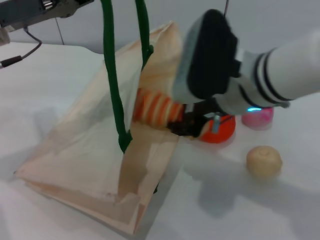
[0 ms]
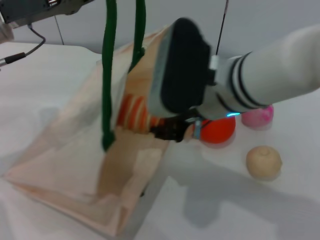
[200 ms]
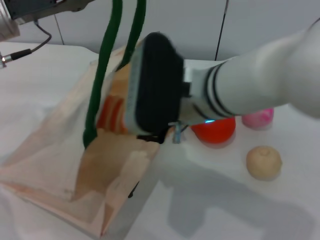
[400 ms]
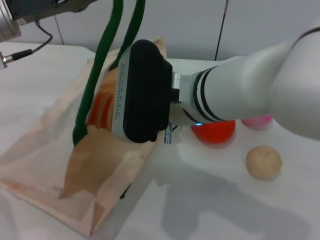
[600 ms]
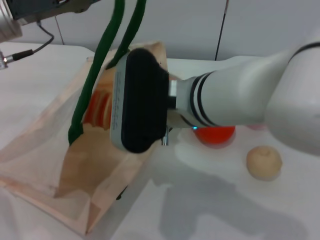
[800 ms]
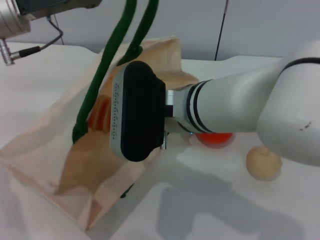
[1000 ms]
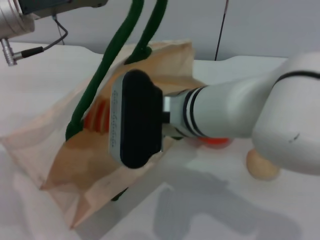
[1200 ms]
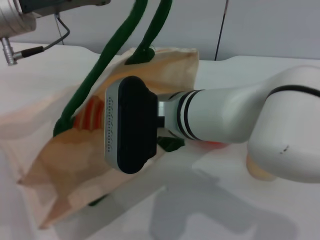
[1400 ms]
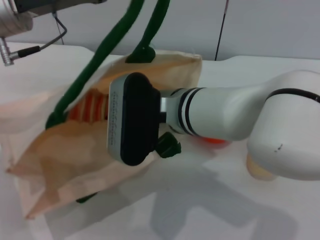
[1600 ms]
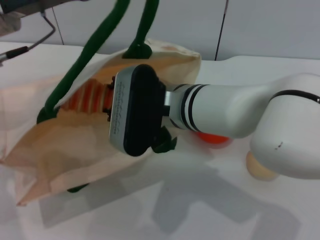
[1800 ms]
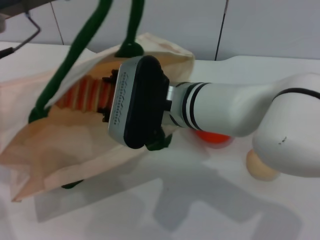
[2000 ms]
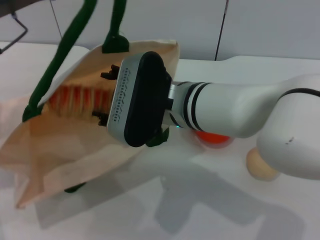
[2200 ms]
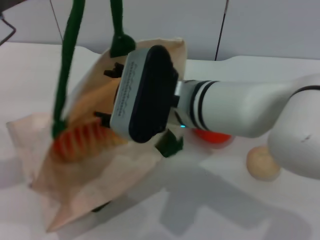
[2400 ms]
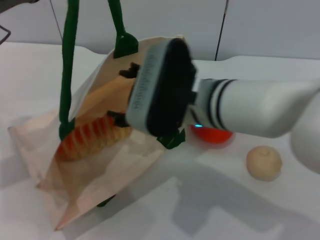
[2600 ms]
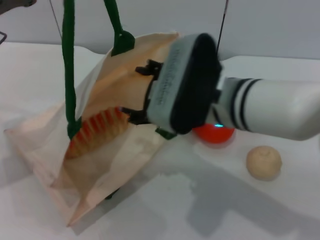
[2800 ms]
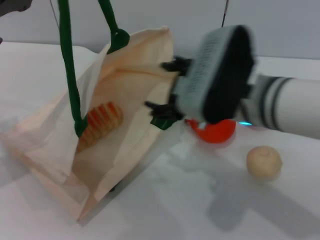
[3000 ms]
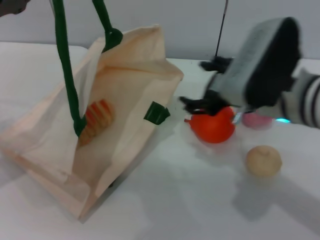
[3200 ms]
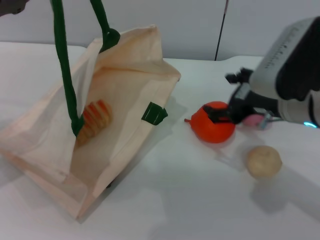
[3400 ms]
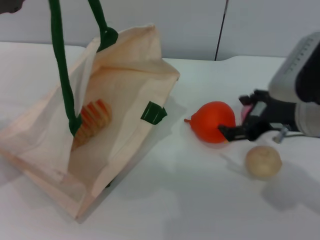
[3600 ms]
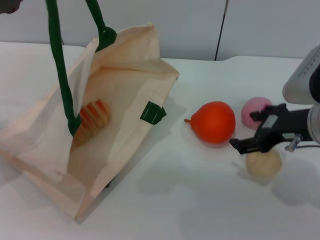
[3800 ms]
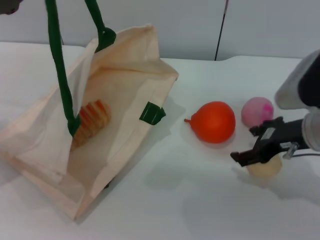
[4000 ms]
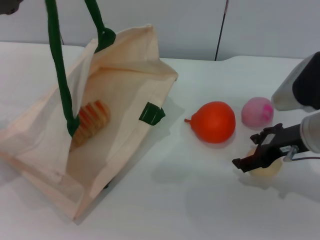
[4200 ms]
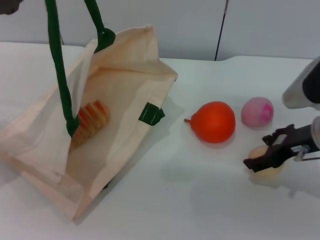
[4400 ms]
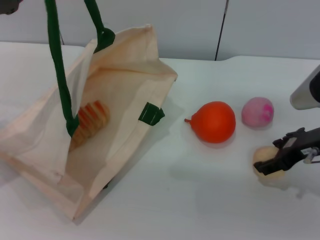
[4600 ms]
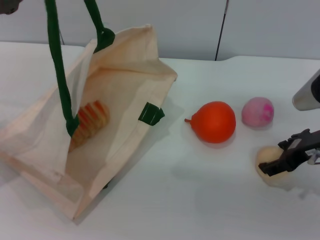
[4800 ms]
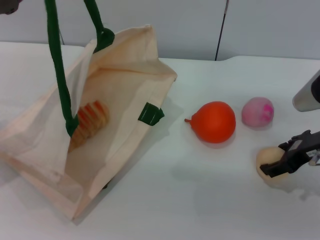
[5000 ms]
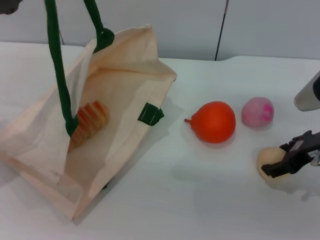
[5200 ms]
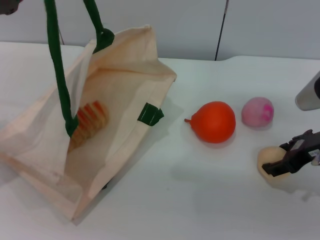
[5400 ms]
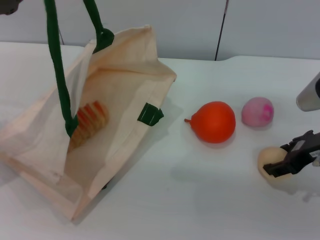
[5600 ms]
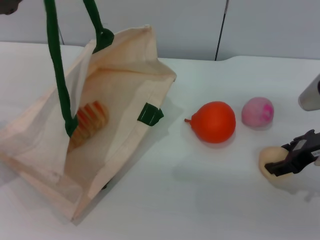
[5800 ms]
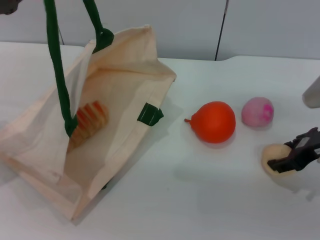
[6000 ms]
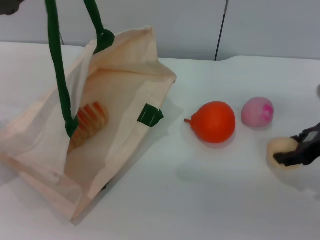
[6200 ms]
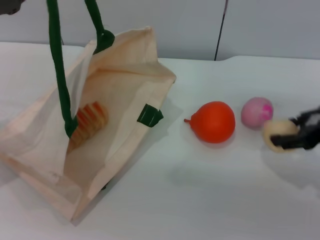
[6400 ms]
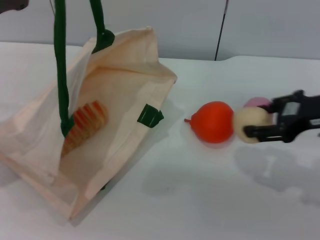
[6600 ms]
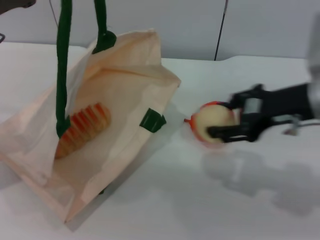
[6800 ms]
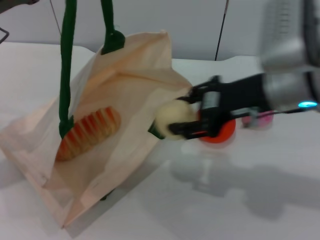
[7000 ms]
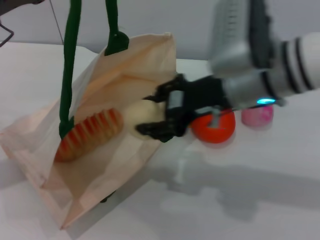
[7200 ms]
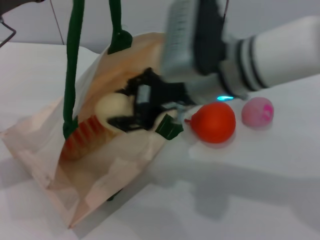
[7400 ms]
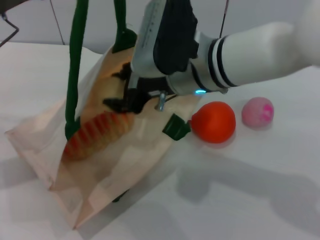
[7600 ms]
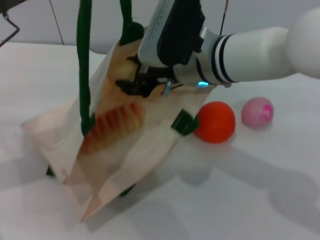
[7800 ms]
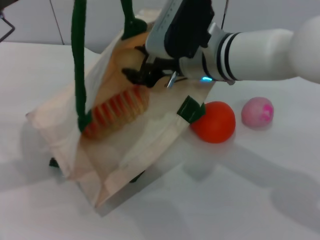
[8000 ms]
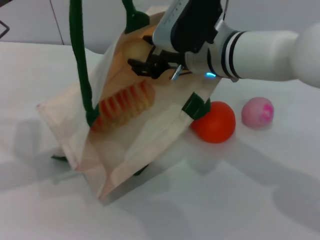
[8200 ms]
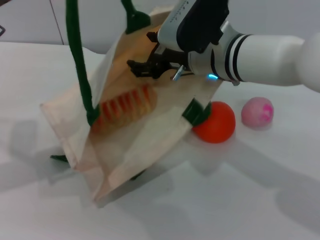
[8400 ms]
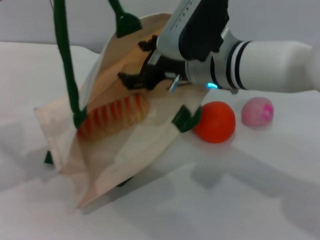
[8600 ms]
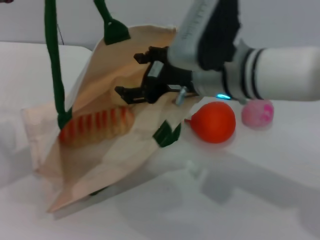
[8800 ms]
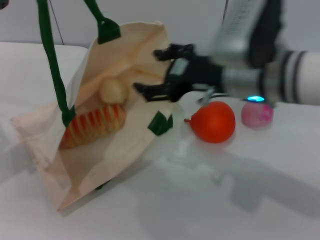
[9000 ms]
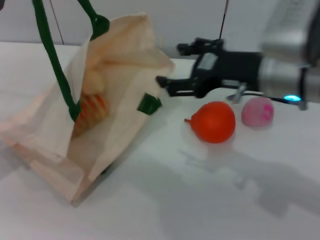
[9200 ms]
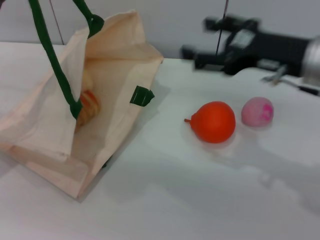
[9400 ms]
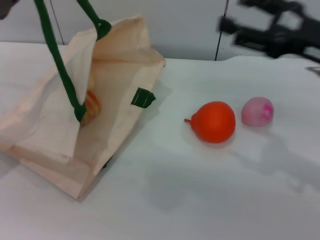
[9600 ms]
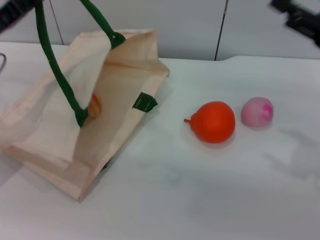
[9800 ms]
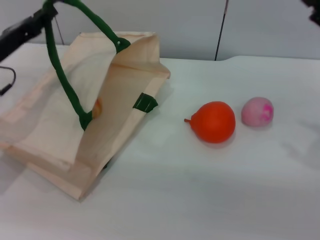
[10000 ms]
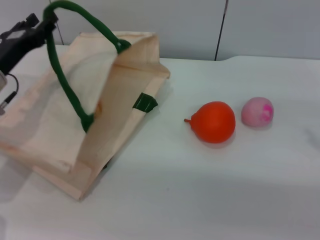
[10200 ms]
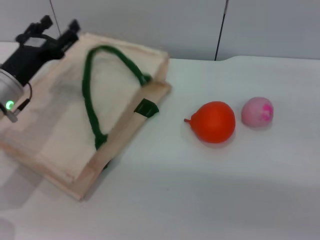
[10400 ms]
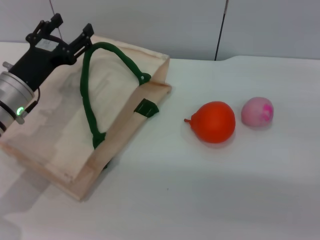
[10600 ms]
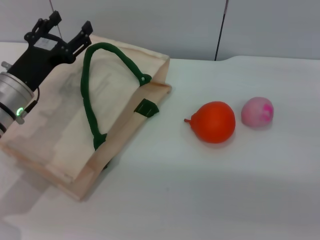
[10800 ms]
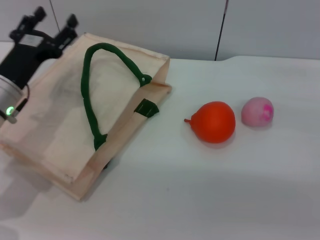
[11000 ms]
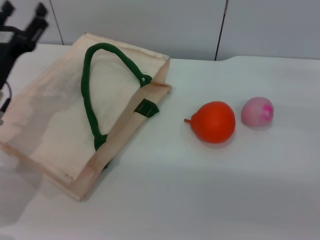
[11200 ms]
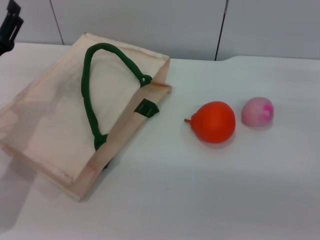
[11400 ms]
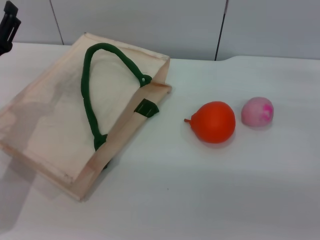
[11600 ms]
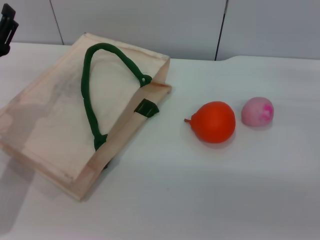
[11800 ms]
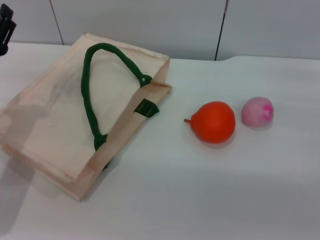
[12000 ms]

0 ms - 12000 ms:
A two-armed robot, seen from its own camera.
Task of the whole recording: pick up the bread and egg yolk pastry from the table and place it in the white handbag.
Step, 0 ms - 2600 ms: Place the bread into the woven bag with the right gripper.
Step, 3000 ms - 6400 ms: Pick up the egg yolk pastry with the right gripper.
Step, 6600 ms - 9000 ms: Place the egg yolk pastry into the woven bag with the right gripper.
Step, 9200 ms - 10800 ms: Lower the woven bag with the left gripper to close it.
0 ms - 1600 ms: The right gripper moves to the left, some 10 cm.
1600 ms - 3000 ms: The right gripper goes roughly 10 cm to the right, and opens up; the left gripper is displaced to the left by approximately 10 cm.
3000 ms - 4400 ms: The right gripper moves to the right, about 15 cm.
4400 ms - 6000 ms: The right gripper closes up.
6000 ms - 7600 ms: The right gripper travels to the left by roughly 20 cm.
7600 ms - 9000 ms: The left gripper shifts by some 5 cm; the right gripper moves to the right, some 5 cm, and opens up.
9000 ms - 10400 ms: The right gripper heads to the right, covering some 20 cm. Meanwhile the left gripper shifts roughly 10 cm downward and to the right, and opens its fingers.
10400 ms - 12000 ms: The left gripper shifts by about 5 cm.
